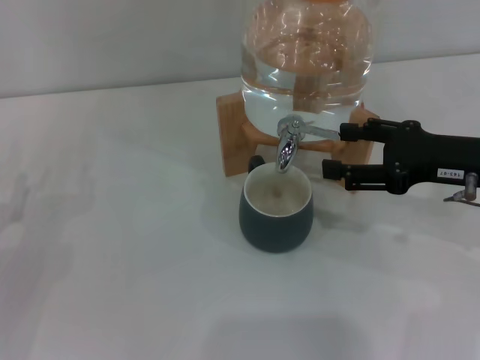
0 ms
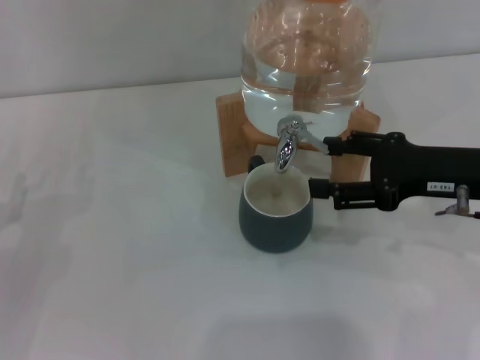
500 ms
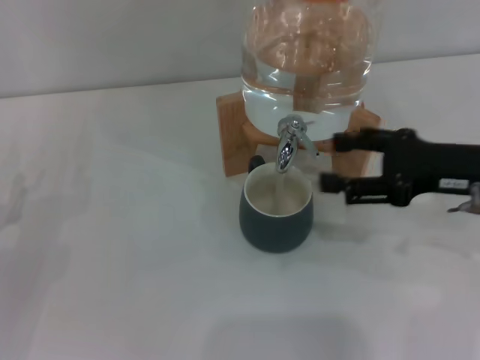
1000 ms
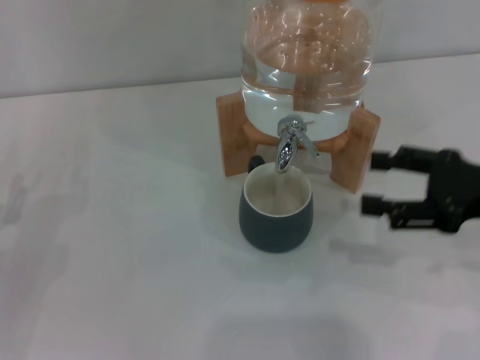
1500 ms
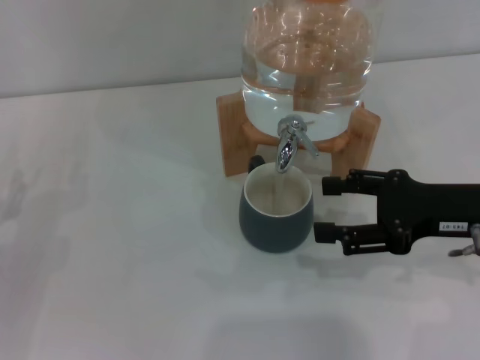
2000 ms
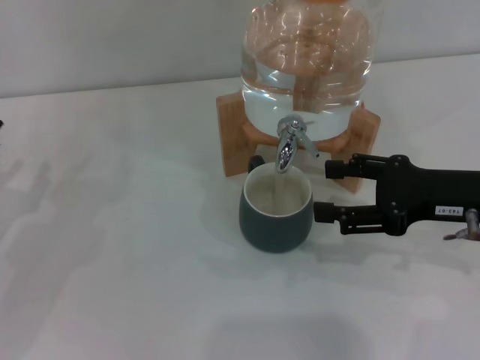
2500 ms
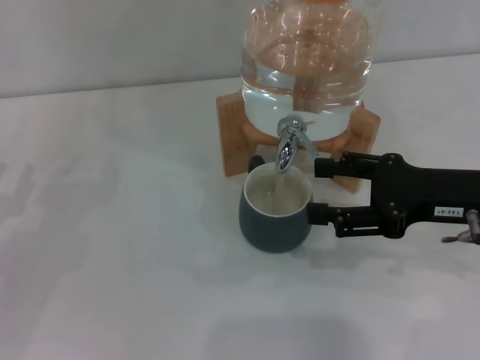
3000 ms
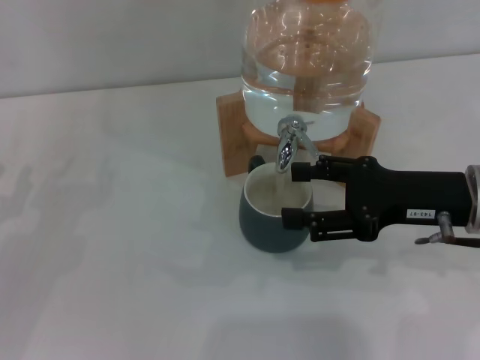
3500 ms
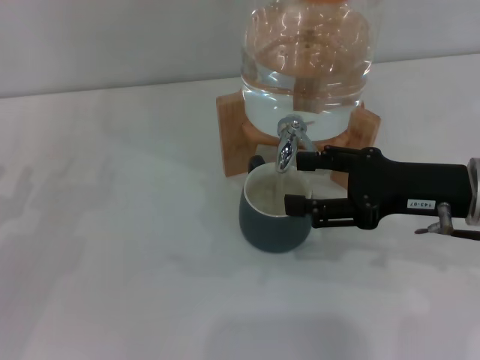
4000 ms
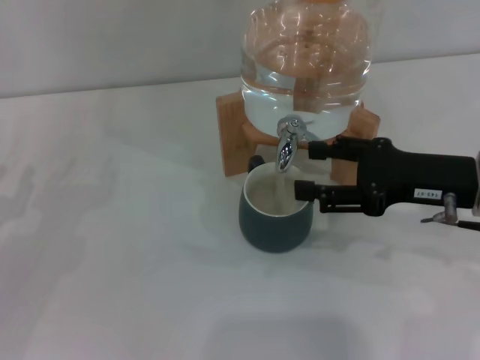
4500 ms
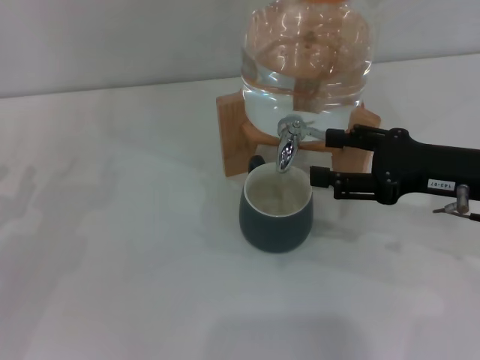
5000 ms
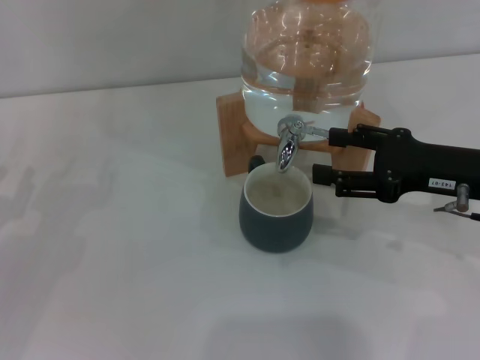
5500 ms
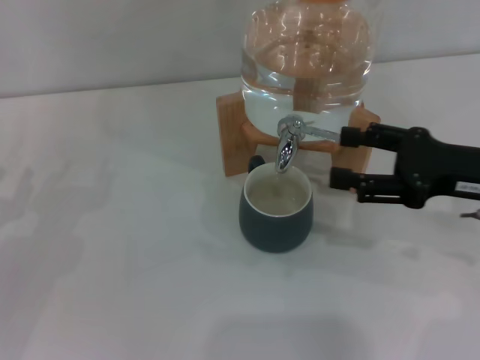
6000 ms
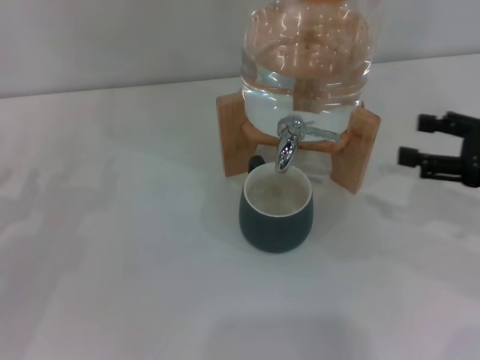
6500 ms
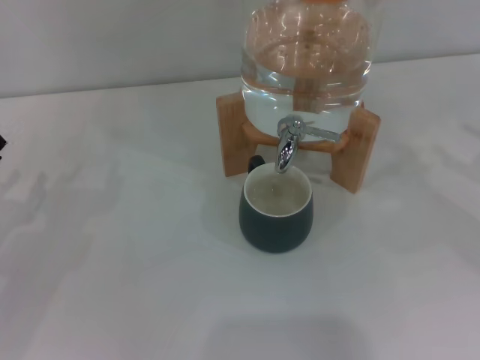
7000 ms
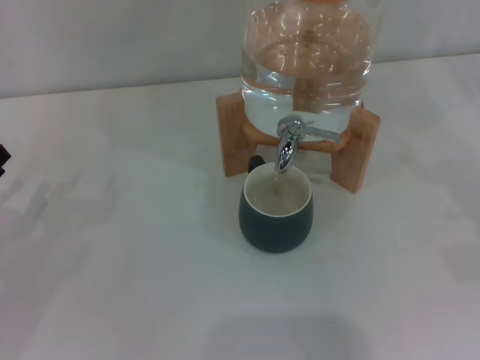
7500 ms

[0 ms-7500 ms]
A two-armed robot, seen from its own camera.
Task of the whole recording: the left gripper pick up the black cup and place it horizontally under the faucet, the right gripper turn on the faucet to fill the cup, and then turn off the faucet.
Step, 1000 ms to 6000 ms: Close the dispenser valve with the right gripper.
0 ms to 5500 ms: The grippers move only a little.
5500 ms to 7500 ms: The right gripper travels to the right by about 15 cm.

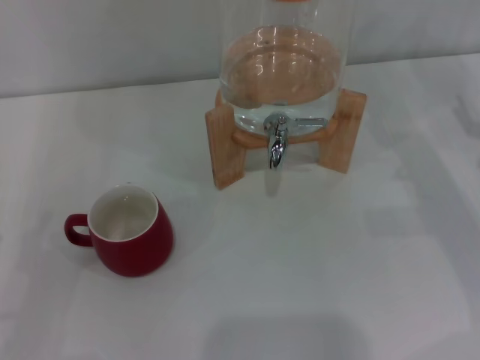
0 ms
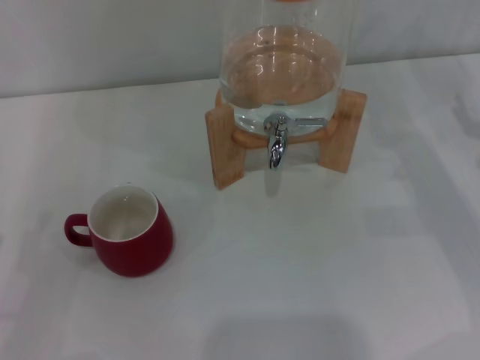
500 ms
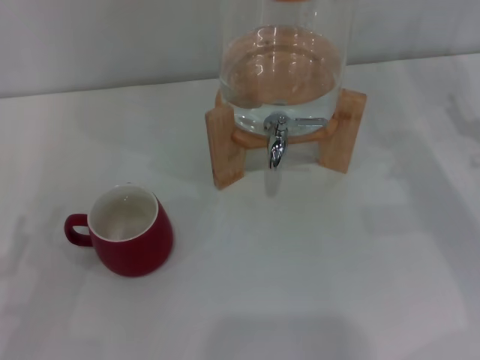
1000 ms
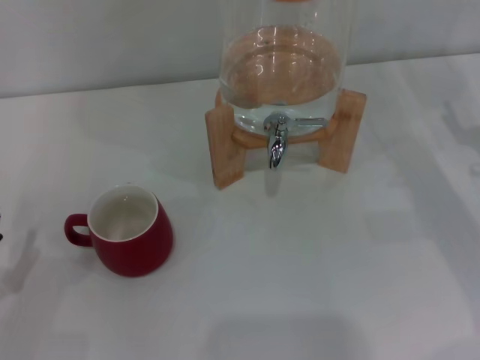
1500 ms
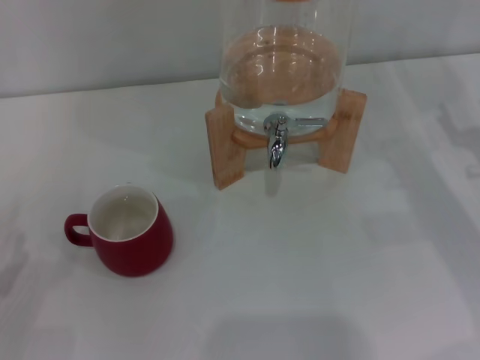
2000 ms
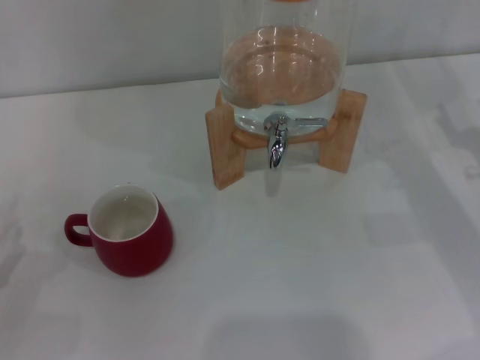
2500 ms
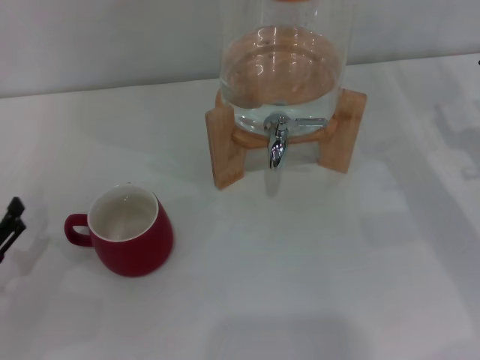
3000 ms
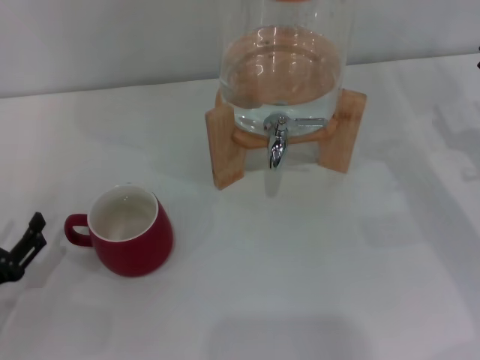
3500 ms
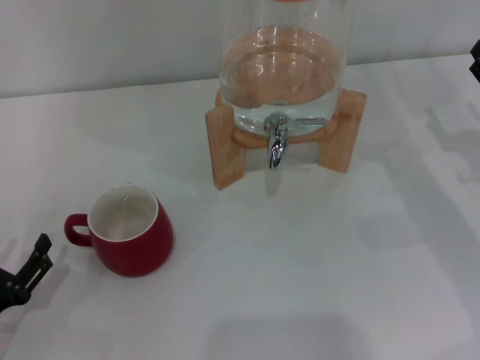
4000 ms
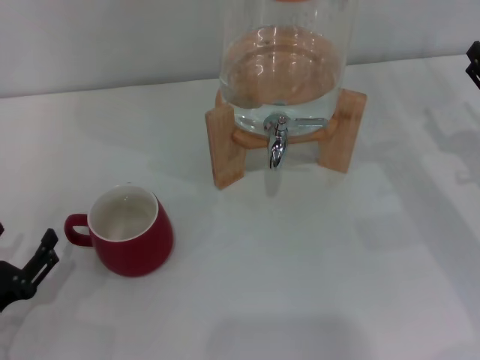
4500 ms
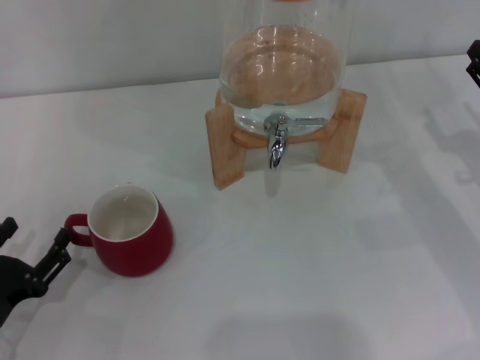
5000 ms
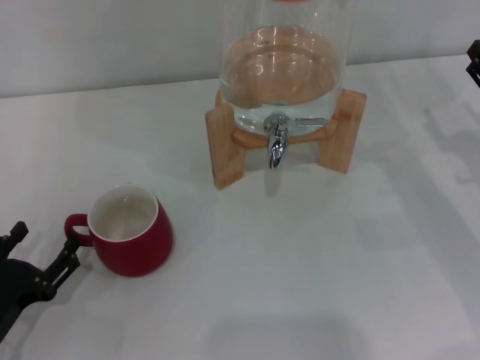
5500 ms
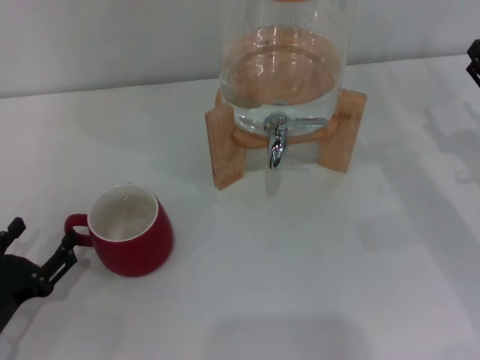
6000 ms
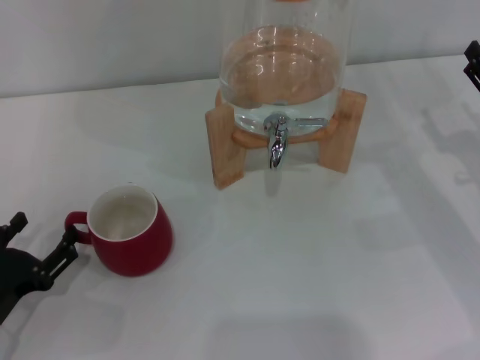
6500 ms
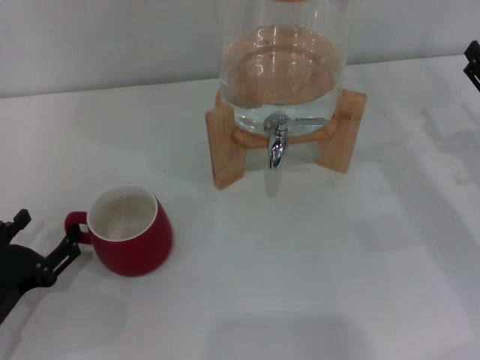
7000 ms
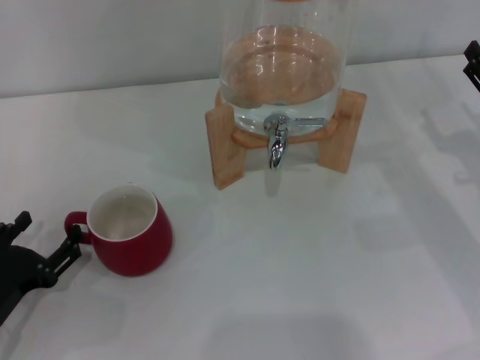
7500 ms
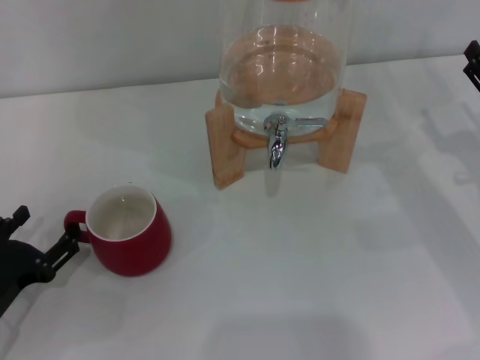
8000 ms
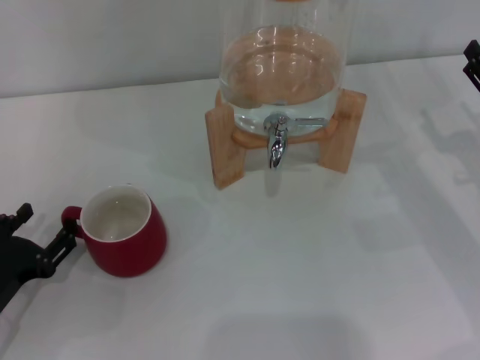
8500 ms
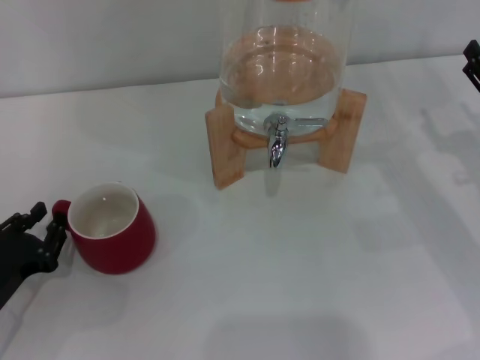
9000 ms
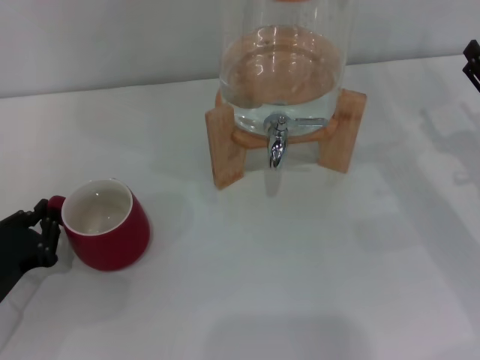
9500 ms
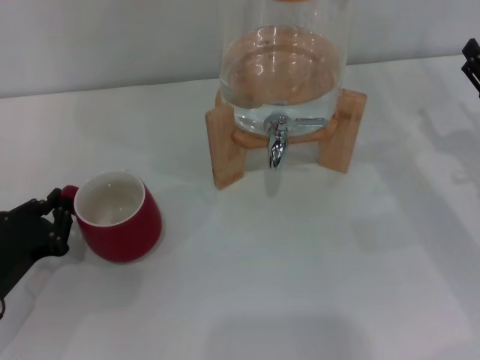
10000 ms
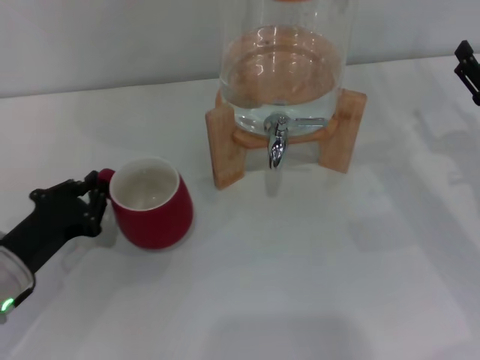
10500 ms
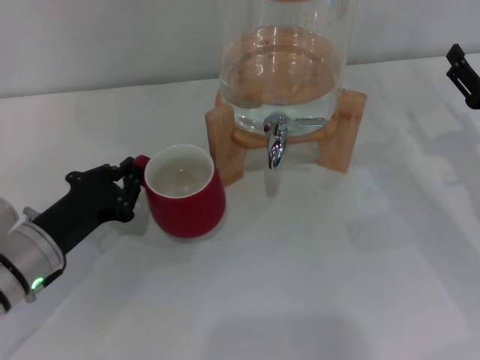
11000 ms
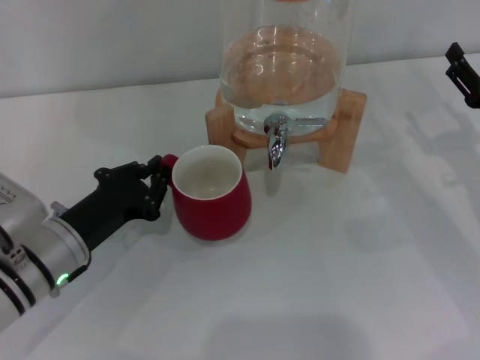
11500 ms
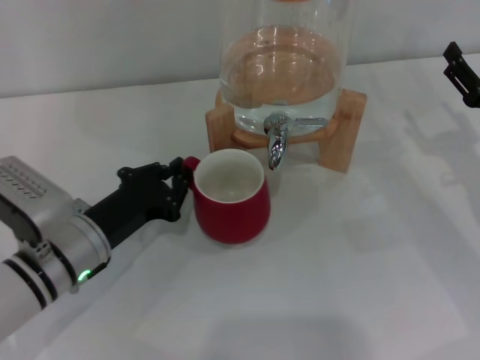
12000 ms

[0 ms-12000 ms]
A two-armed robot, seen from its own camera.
Task of the whole recording: the left gripper pick up the red cup and place it horizontally under the faucet, the right gripper turn on the faucet to fill the cup, and then turn off the faucet.
2000 ms to 8000 ms: There are only small adjustments of the grippers.
8000 ms to 10000 ms: The left gripper closes up.
10000 ms to 12000 ms: The left gripper is displaced to the right by approximately 10 cm.

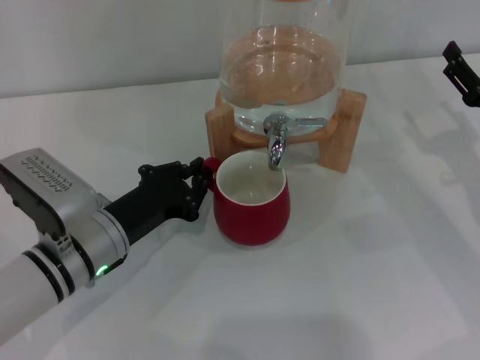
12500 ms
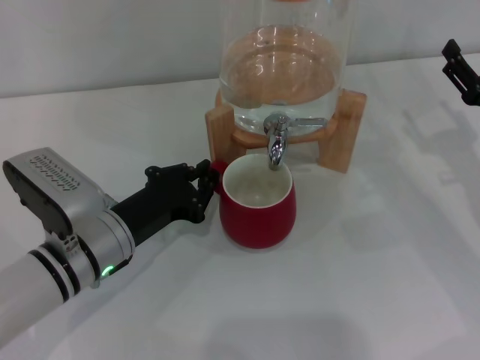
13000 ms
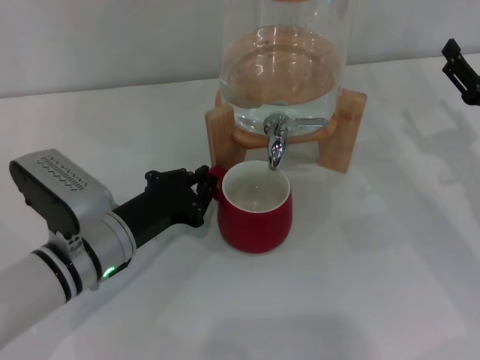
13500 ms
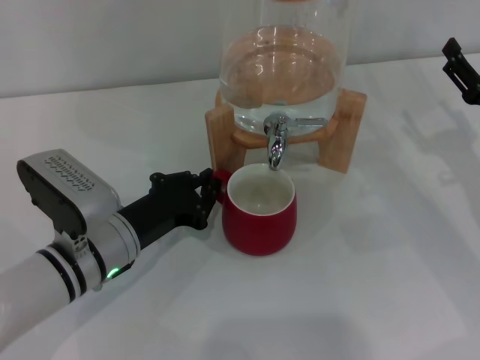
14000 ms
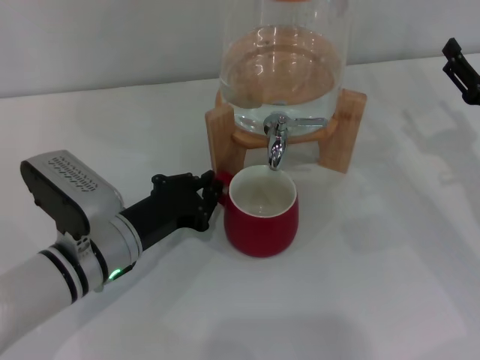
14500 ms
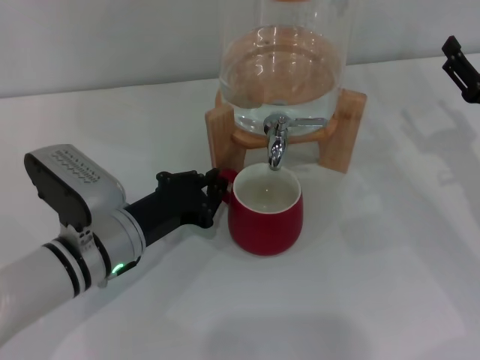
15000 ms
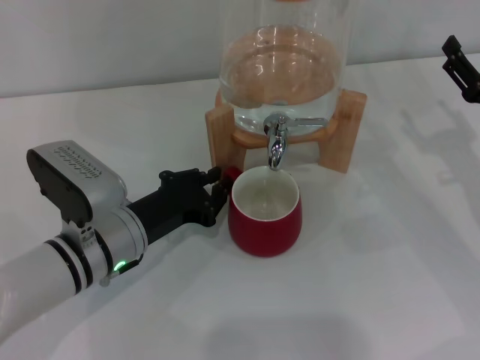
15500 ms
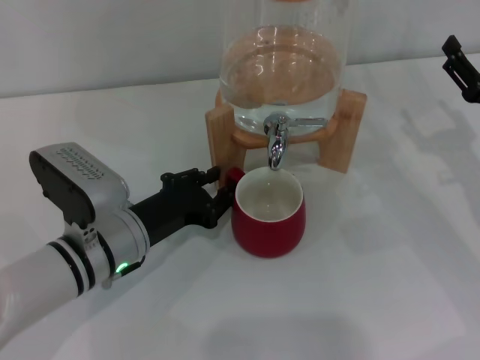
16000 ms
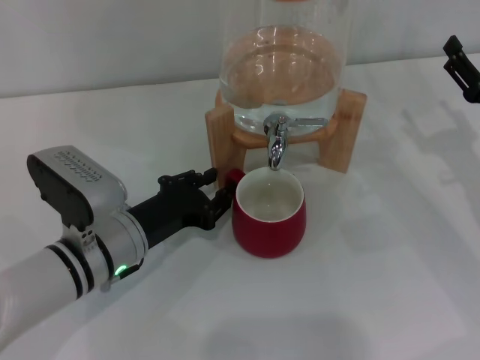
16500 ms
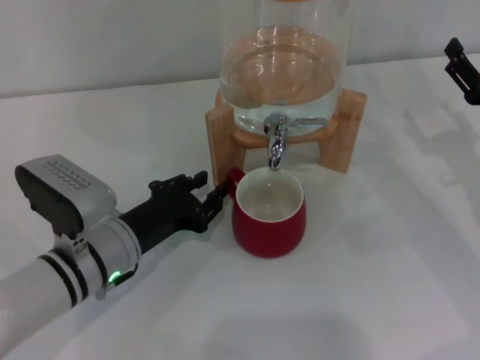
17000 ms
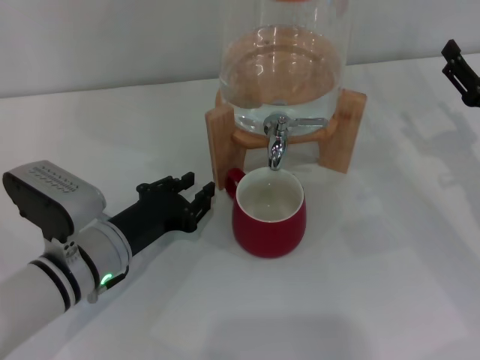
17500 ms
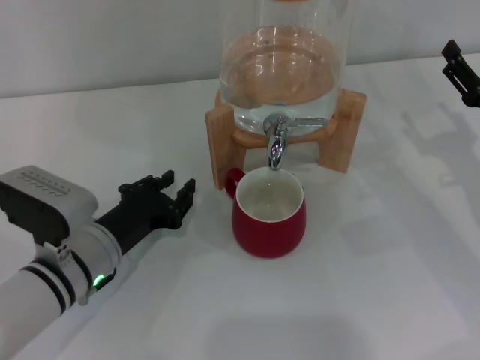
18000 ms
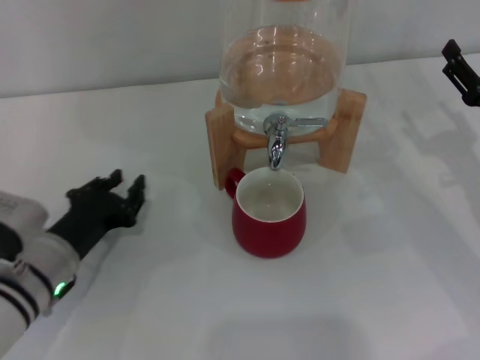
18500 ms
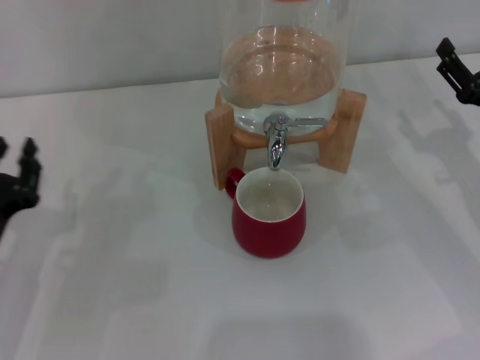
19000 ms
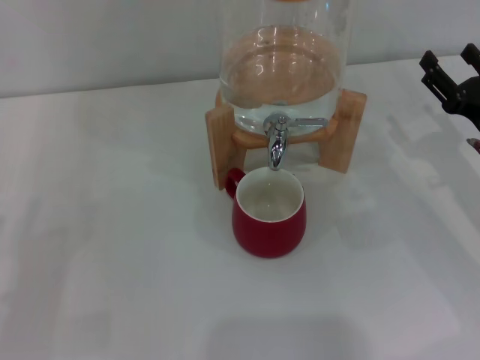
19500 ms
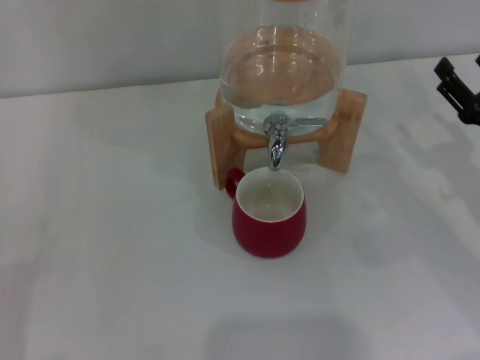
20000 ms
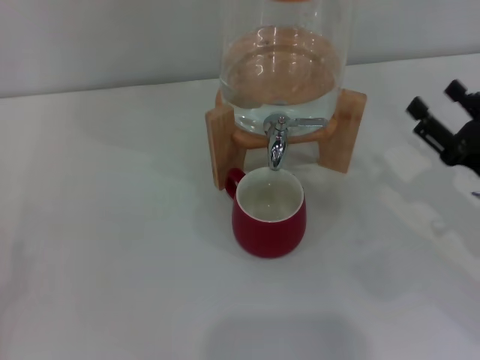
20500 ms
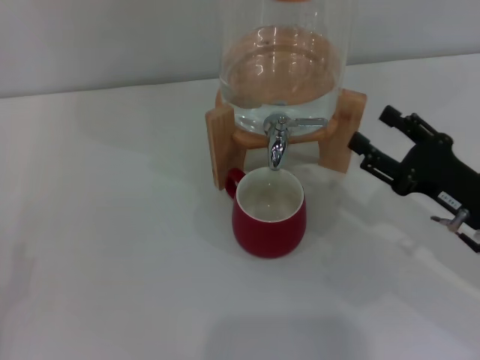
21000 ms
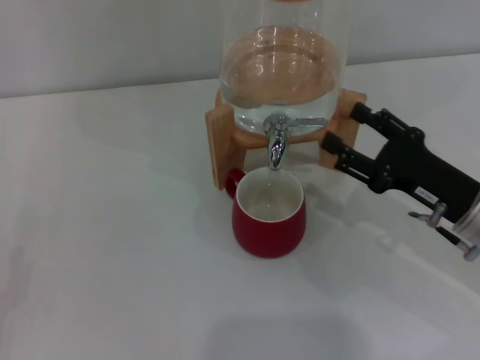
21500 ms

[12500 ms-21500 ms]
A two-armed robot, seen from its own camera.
Task of the whole recording: the left gripper pick up the red cup and place it horizontally under the faucet, the right gripper turn on the faucet to fill the cup, and then turn off the faucet.
Step, 12500 ms to 17500 ms: Move the cup beneath the water dispenser nozzle with the left gripper.
12500 ms to 14500 ms: Both grippers stay about where they are.
14500 ms to 17000 ms: There are only small adjustments of the grippers.
17000 ms to 19500 ms: The left gripper is displaced to the left and backward by approximately 20 cm.
19500 ms to 21500 ms: The right gripper moves to the left, approximately 5 cm.
